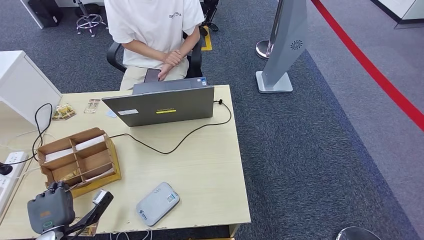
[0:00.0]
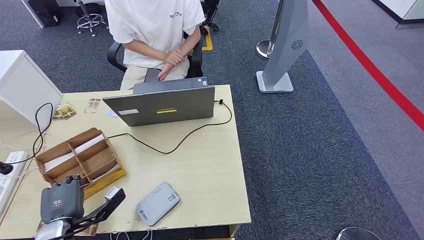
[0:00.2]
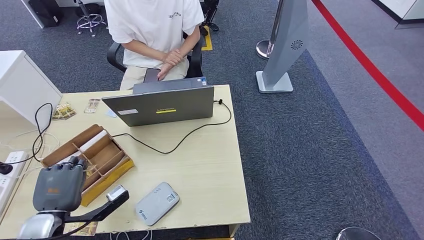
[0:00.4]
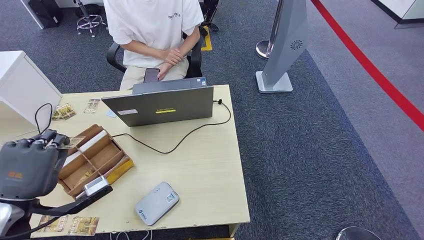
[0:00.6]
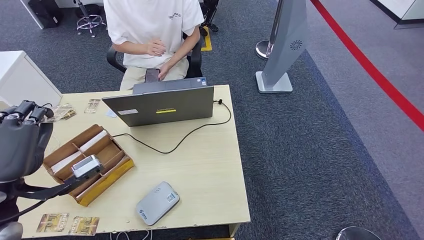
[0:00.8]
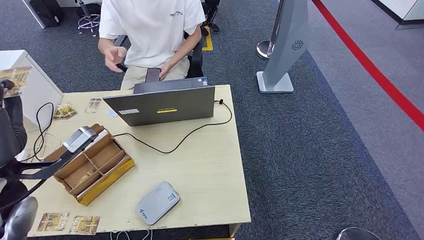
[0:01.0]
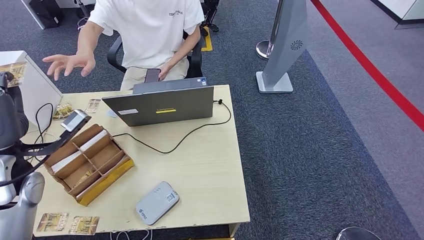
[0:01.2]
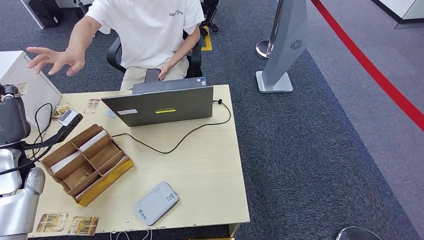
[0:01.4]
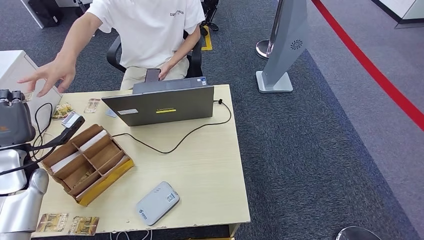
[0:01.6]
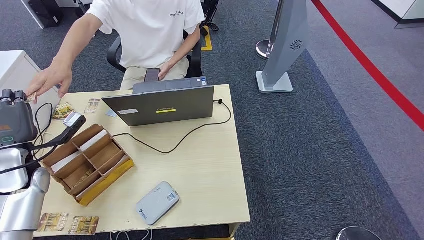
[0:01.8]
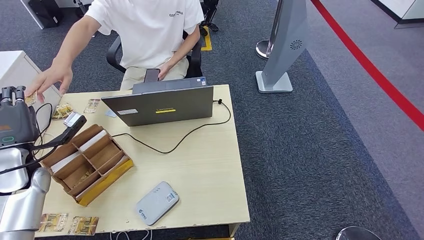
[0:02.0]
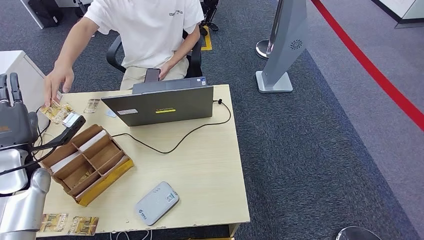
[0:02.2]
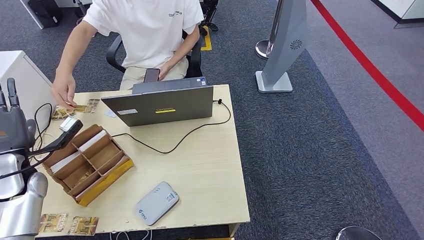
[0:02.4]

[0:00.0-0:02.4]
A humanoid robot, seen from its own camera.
Step, 0:00.0 to 0:02.4: Hand the room key to the person.
0:00.0 to 0:01.2: The left hand is displaced upward by approximately 25 cm.
0:01.2 to 0:02.4: The left hand heads downward and to the left, covering some 10 cm.
